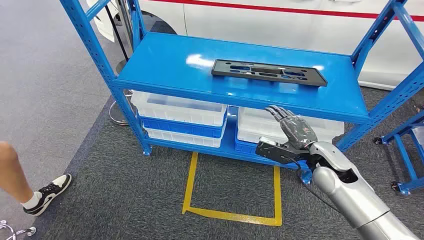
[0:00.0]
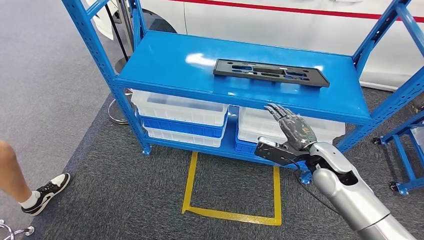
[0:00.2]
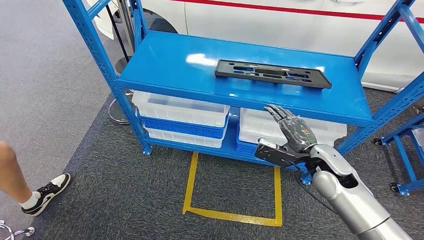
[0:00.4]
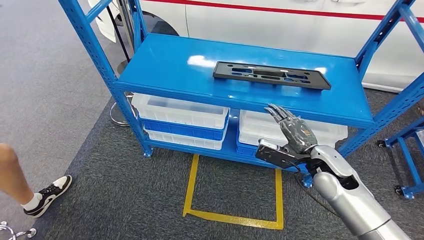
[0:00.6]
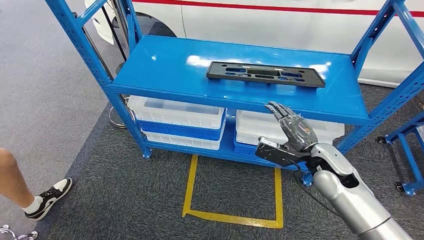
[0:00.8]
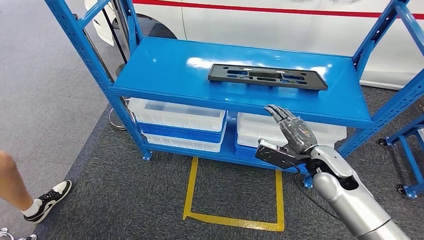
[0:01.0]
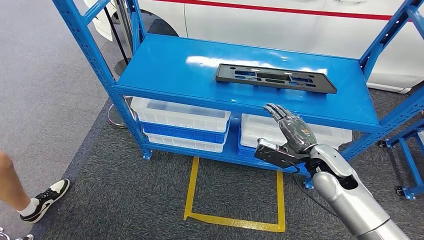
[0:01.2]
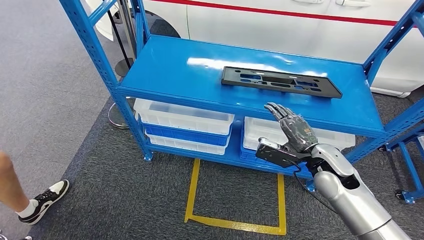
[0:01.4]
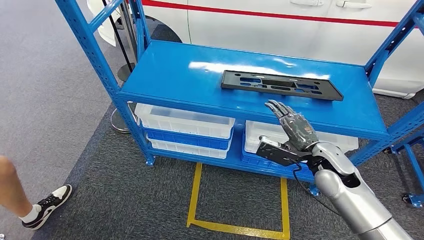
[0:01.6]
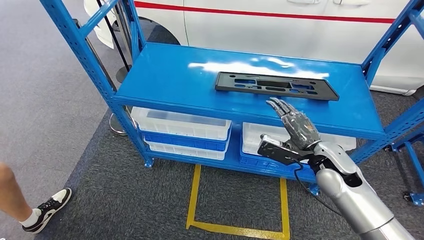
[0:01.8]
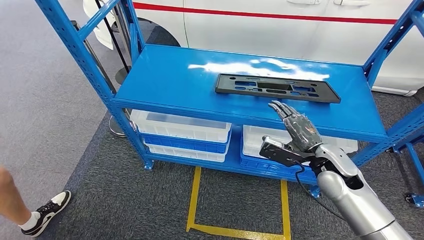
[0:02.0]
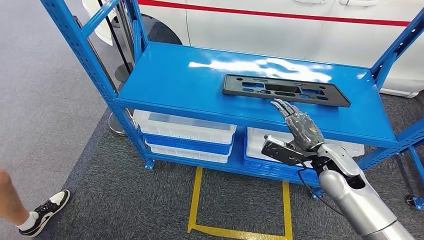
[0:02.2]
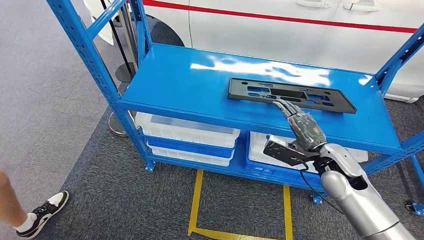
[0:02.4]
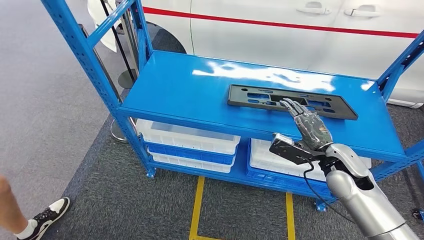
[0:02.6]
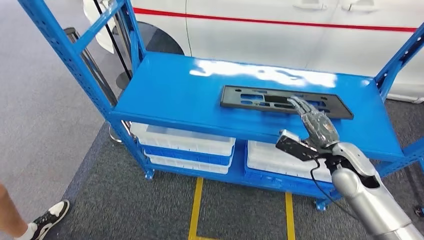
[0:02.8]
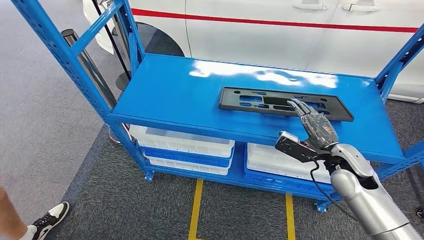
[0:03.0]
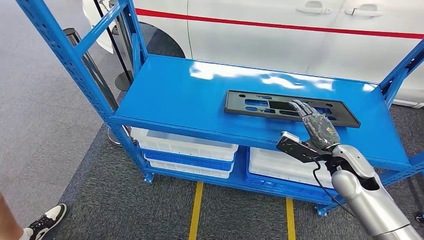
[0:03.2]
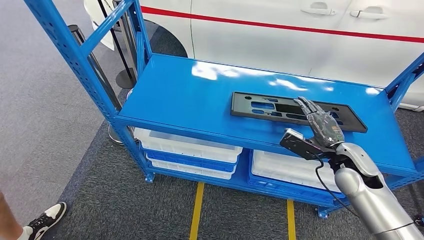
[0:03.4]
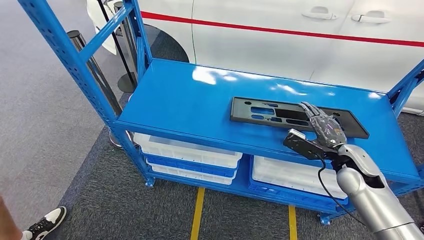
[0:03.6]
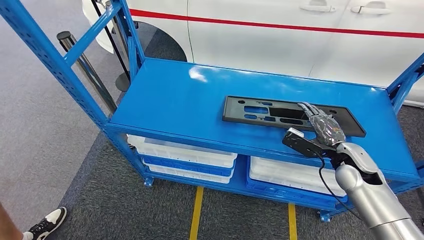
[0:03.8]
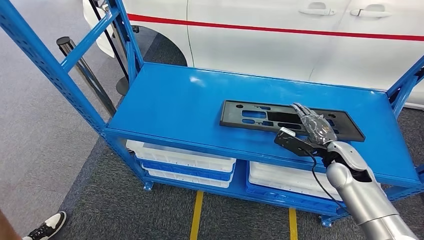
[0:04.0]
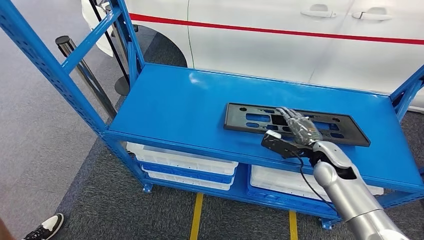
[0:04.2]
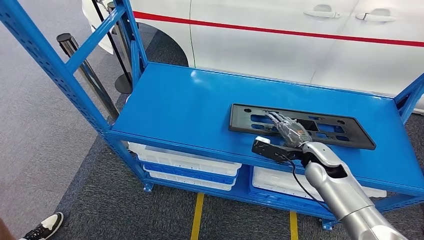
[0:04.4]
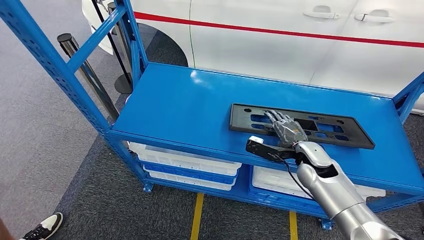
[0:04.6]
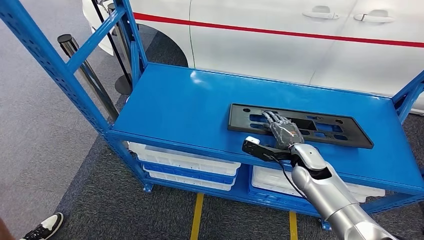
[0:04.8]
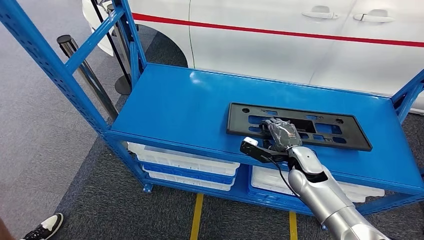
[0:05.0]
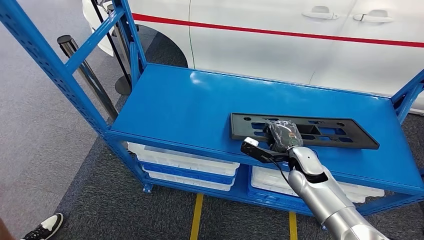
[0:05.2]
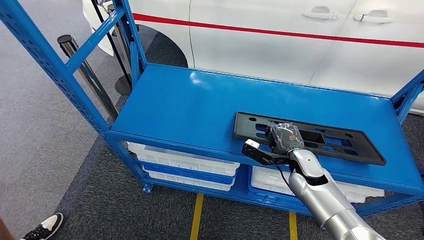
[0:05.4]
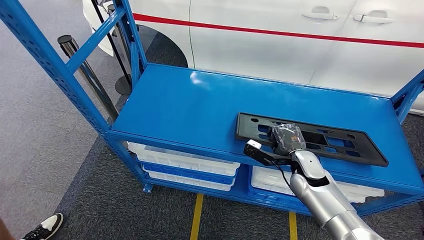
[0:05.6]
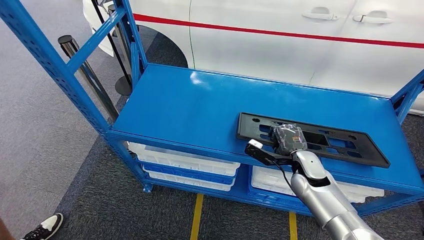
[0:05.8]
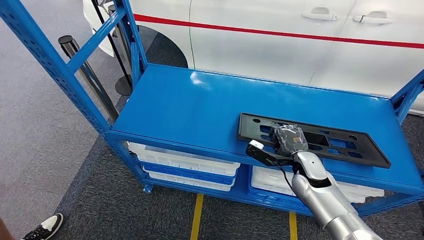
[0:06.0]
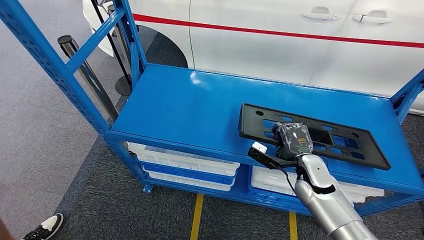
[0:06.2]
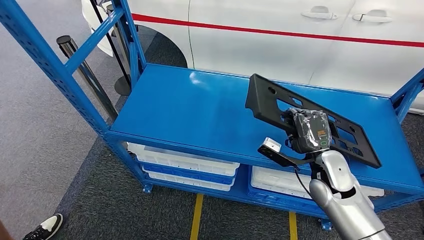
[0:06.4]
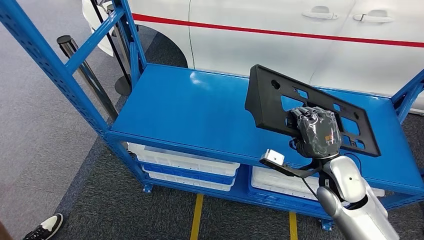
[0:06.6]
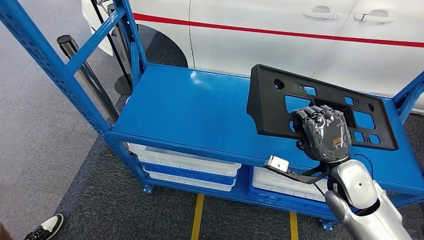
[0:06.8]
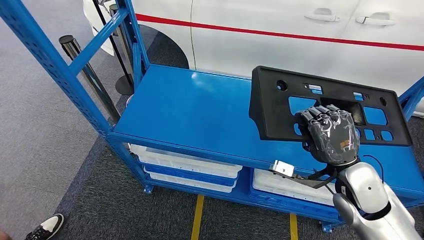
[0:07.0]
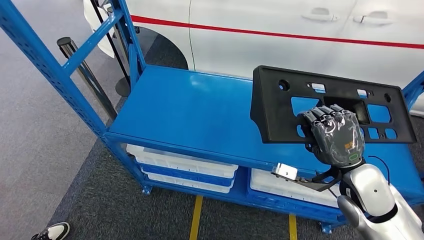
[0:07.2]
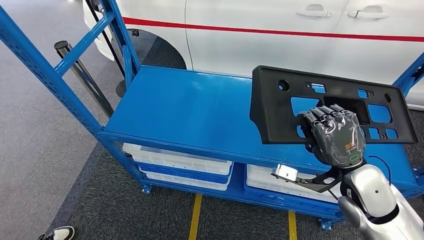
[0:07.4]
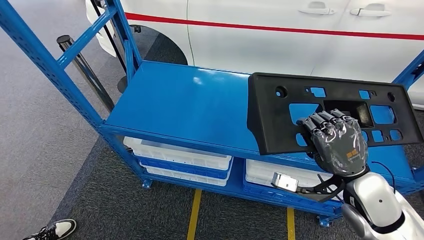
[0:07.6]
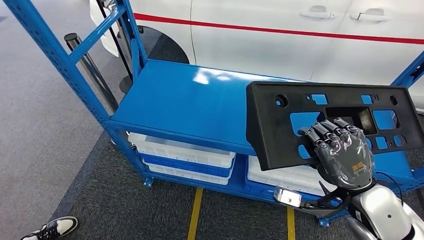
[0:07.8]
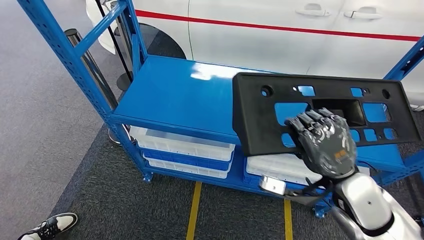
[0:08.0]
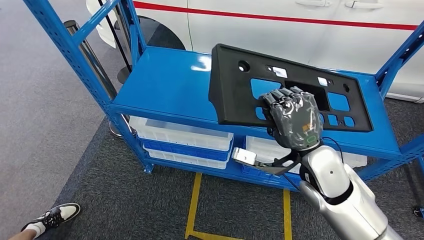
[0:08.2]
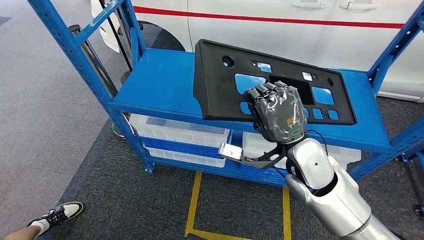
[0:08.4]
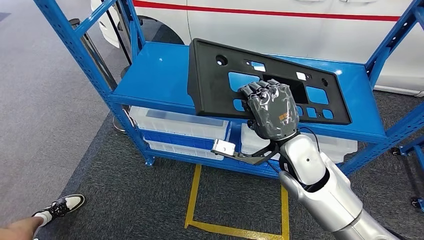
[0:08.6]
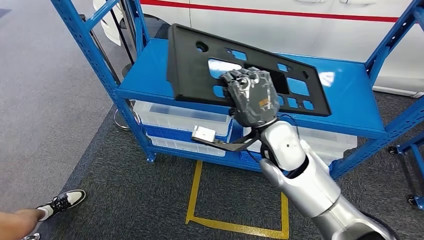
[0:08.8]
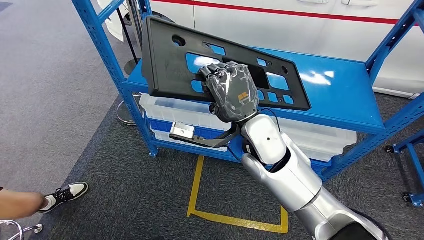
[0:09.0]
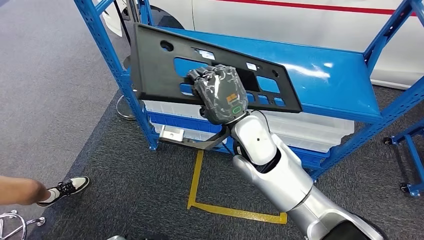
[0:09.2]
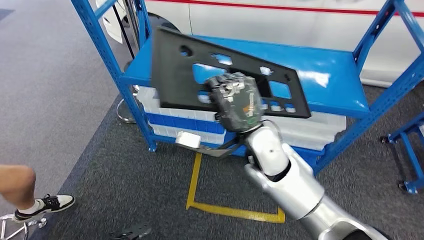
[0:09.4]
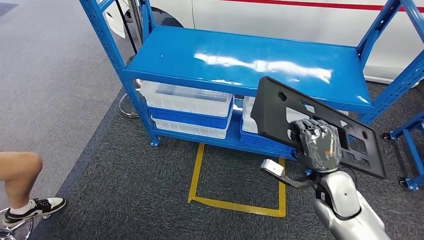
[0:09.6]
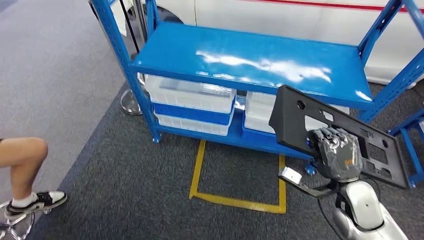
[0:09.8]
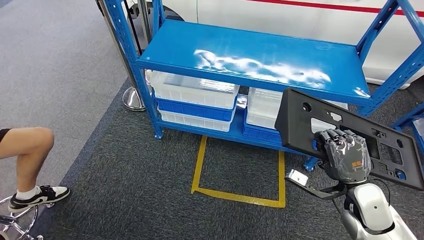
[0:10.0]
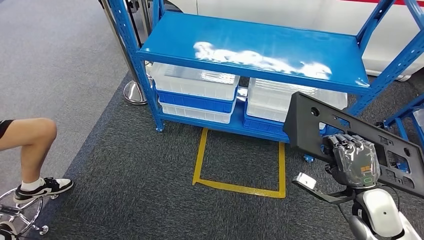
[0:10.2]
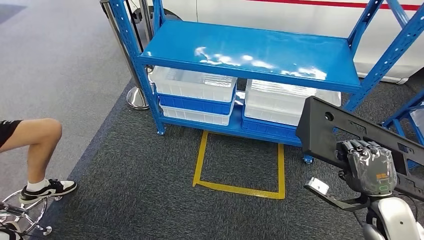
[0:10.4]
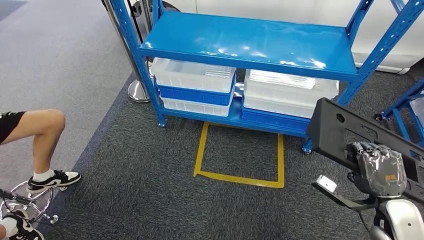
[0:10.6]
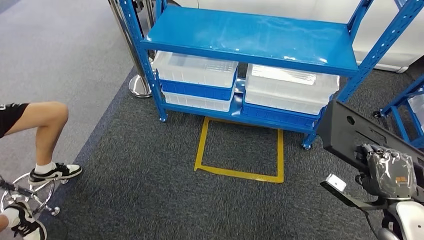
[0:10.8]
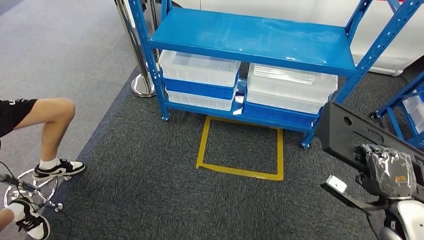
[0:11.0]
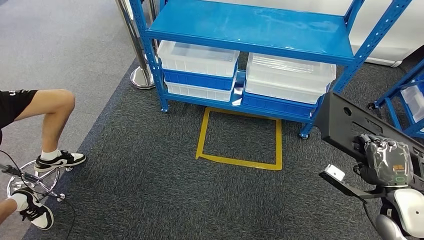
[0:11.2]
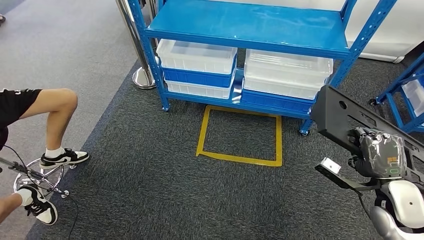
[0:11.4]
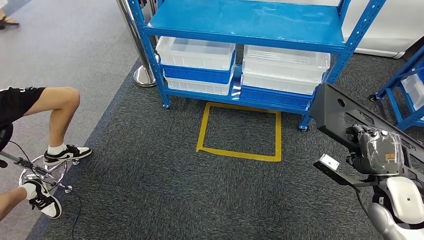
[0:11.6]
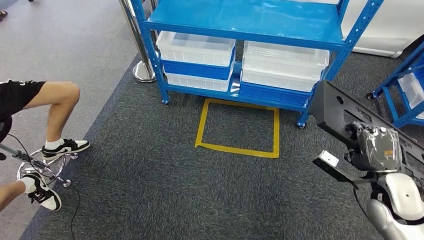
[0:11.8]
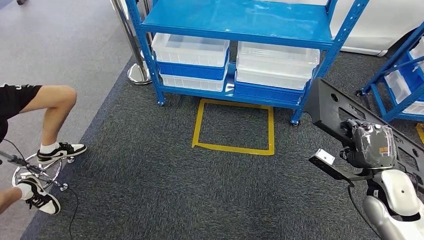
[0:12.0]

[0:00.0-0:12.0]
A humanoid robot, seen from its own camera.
Step, 0:00.0 to 0:07.2: Pick up the large material from the shelf.
0:04.4 to 0:06.0: There are only small adjustments of the hands.

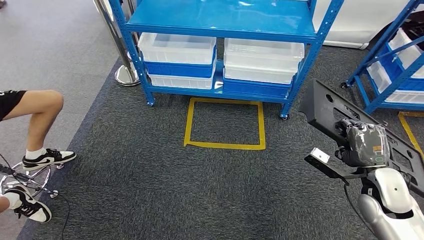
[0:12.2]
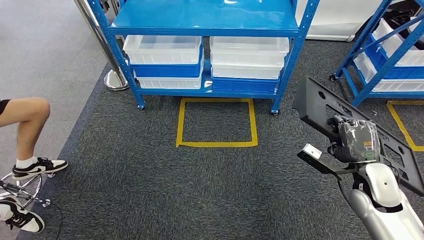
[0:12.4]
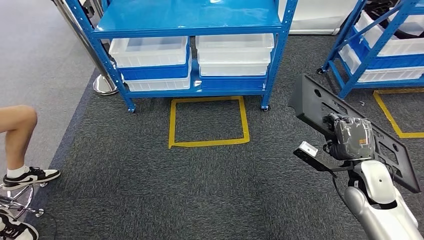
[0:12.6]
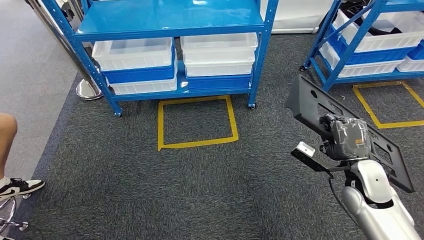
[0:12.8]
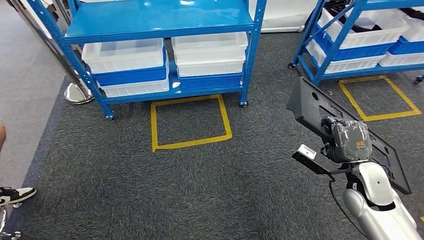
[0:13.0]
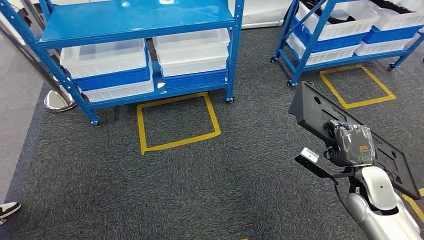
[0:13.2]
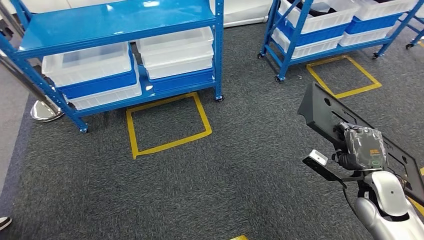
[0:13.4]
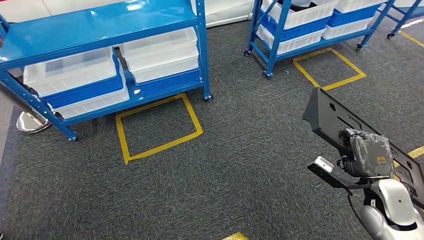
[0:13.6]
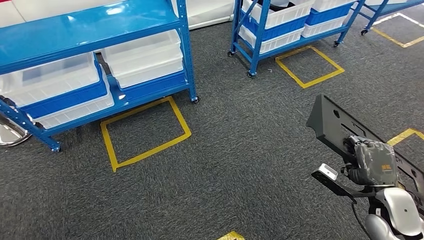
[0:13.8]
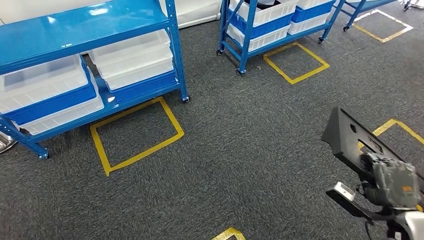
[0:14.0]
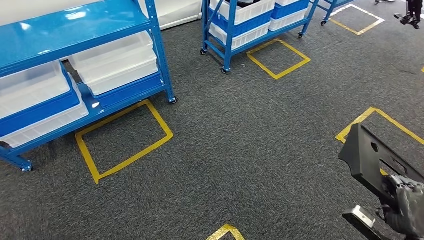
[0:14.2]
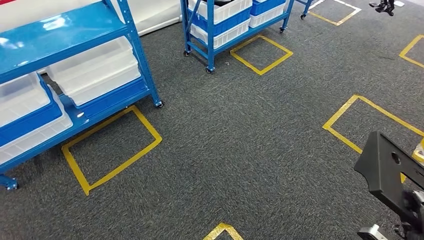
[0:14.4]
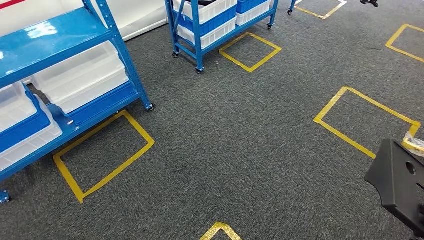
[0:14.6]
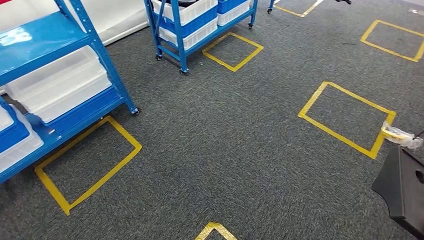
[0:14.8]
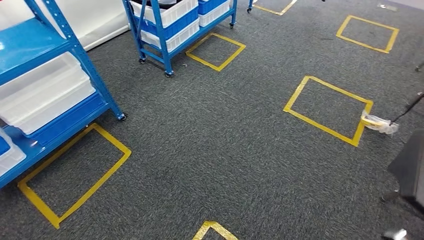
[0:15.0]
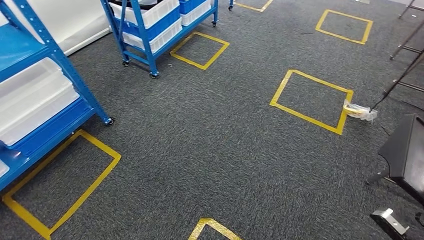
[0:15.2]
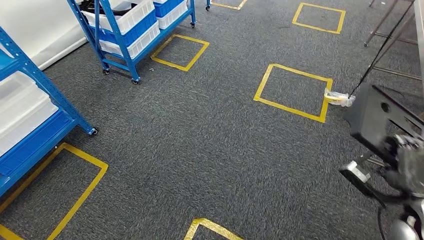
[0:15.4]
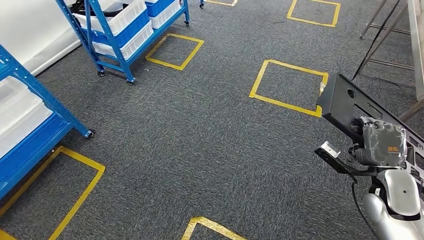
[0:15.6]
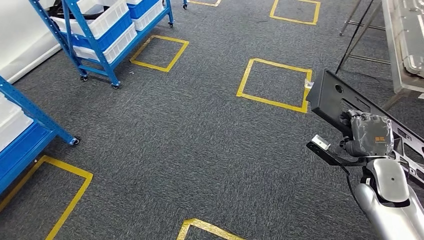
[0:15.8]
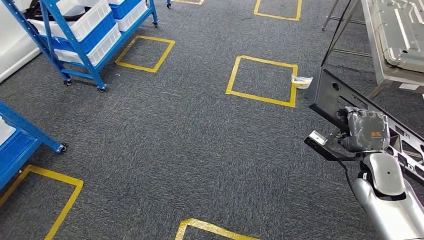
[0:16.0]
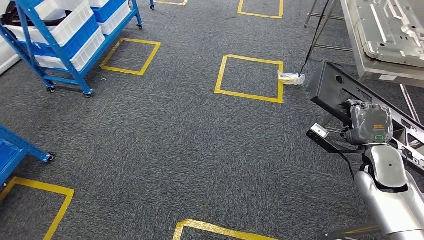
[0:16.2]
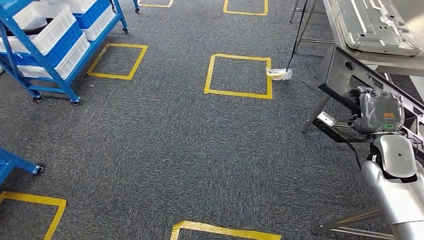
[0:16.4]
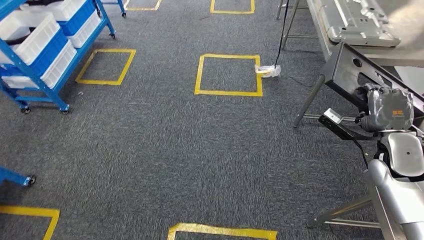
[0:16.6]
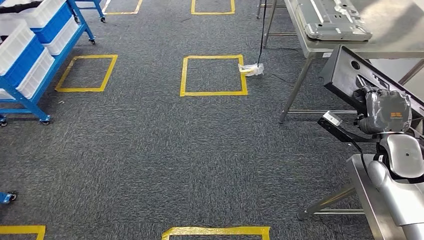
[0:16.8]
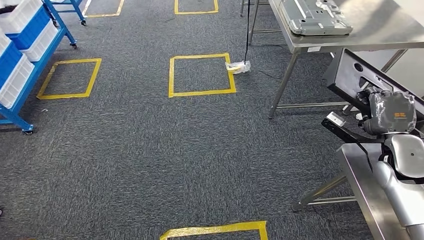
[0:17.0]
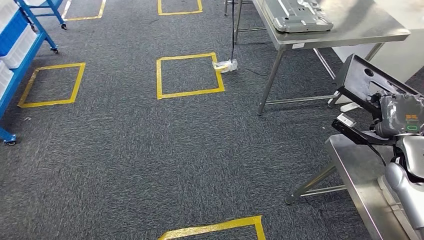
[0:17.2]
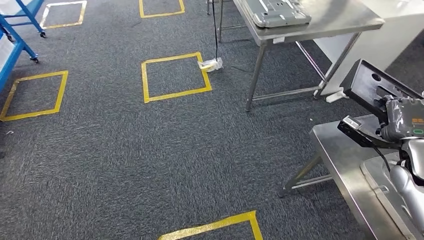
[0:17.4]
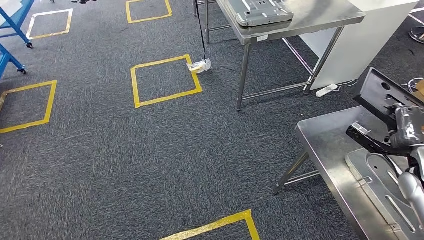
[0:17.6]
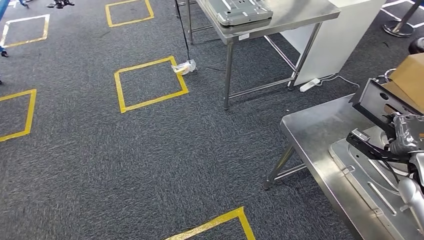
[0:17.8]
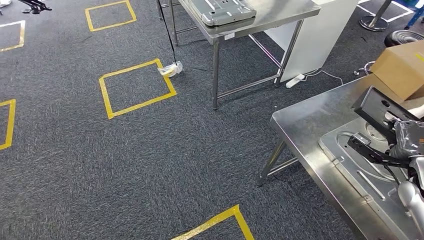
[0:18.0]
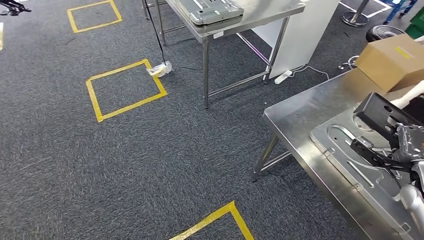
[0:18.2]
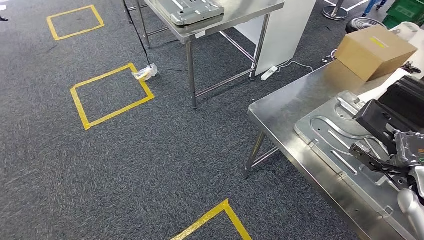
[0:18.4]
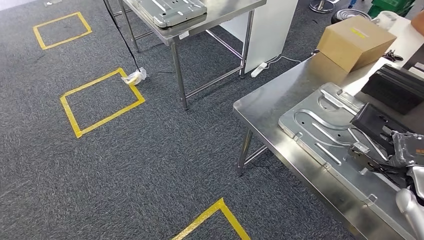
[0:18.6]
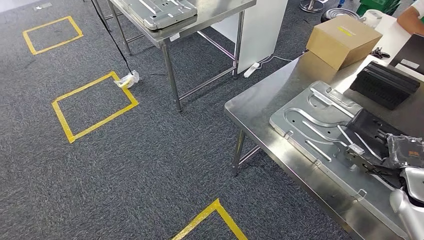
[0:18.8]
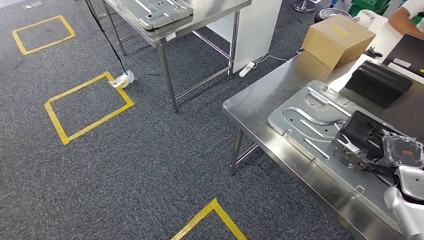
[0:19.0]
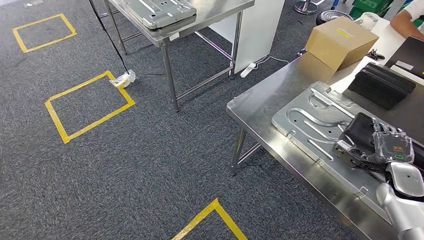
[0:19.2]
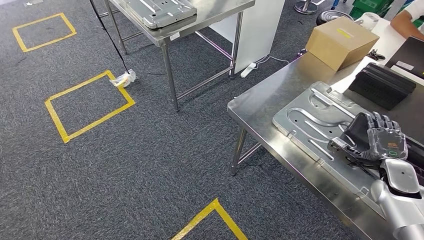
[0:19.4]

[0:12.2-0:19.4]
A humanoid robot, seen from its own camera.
Step, 0:12.2 to 0:17.0: Move the large material to the workbench.
